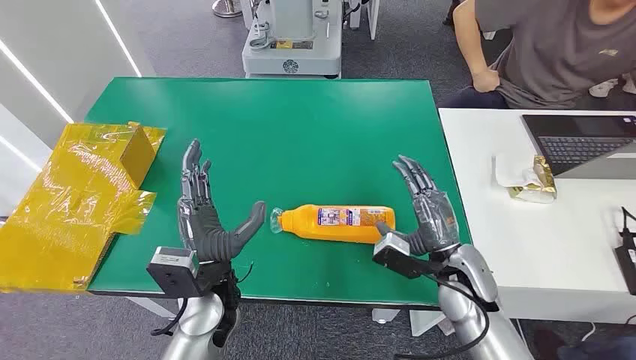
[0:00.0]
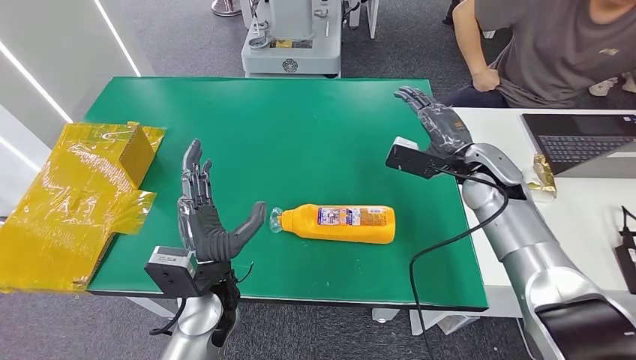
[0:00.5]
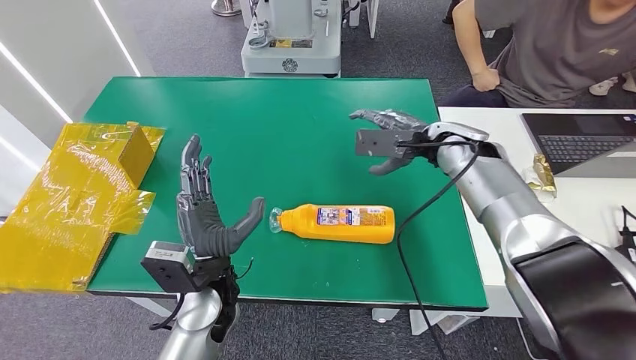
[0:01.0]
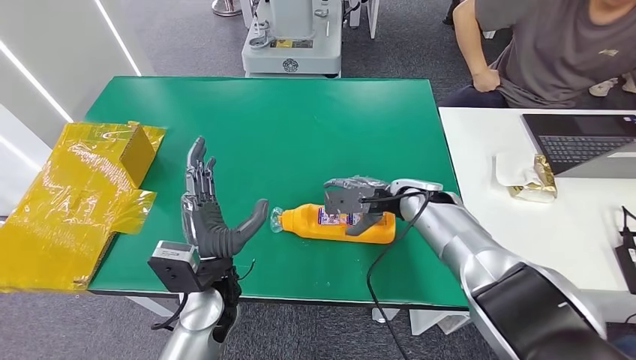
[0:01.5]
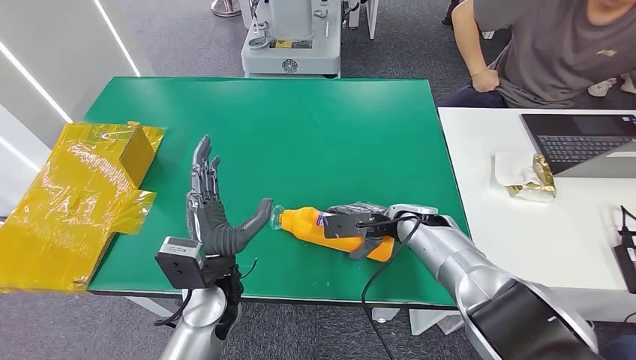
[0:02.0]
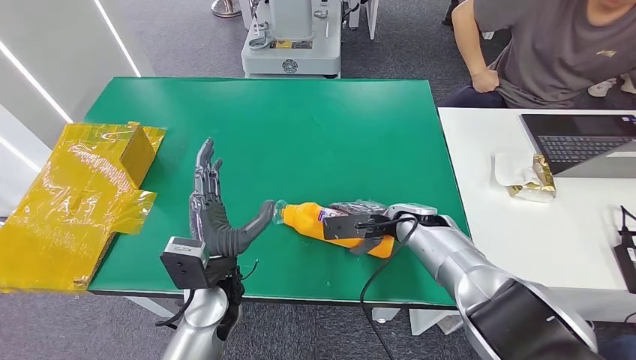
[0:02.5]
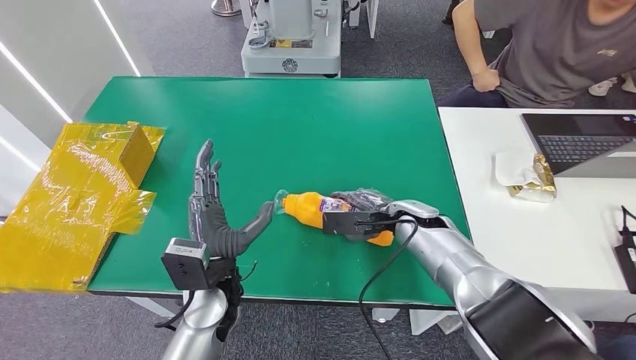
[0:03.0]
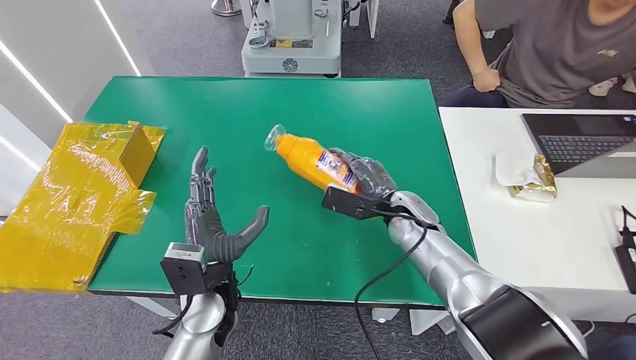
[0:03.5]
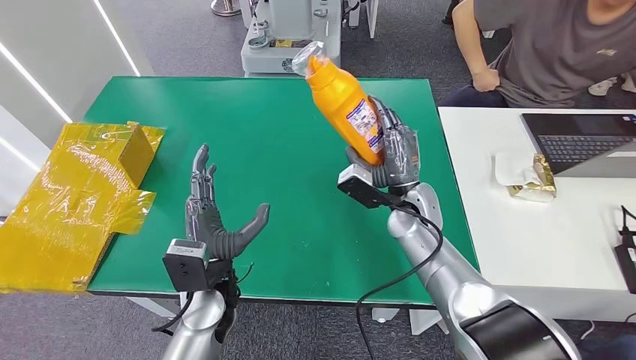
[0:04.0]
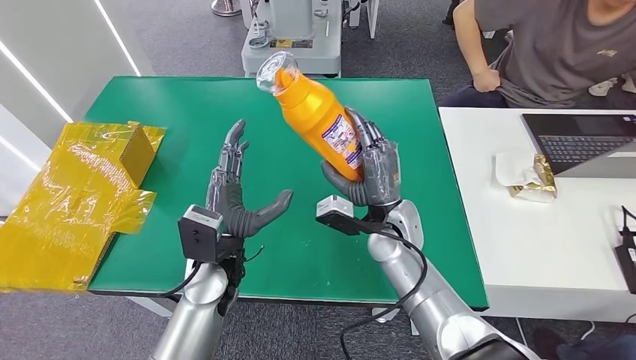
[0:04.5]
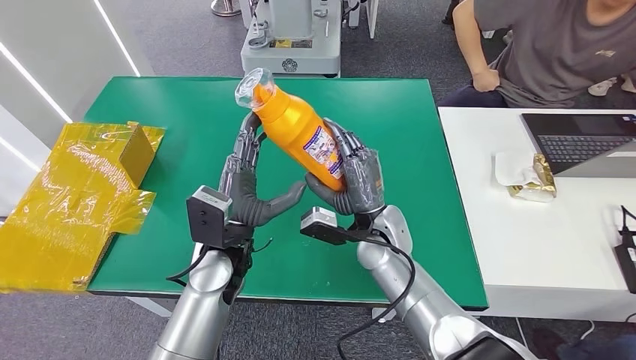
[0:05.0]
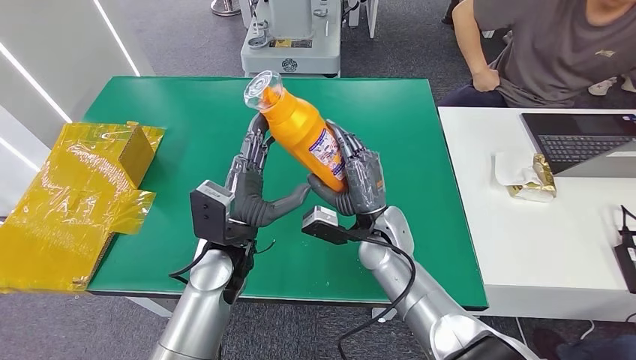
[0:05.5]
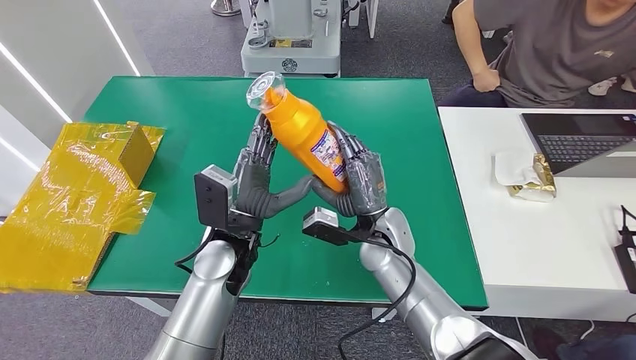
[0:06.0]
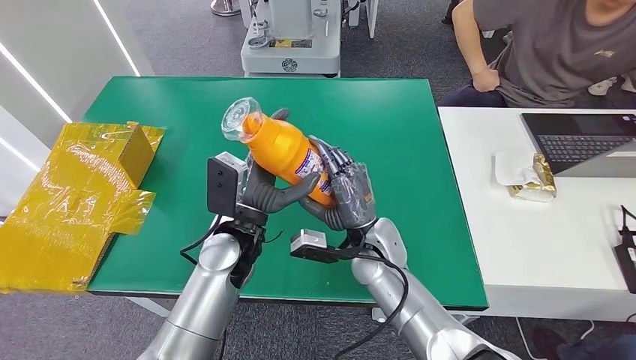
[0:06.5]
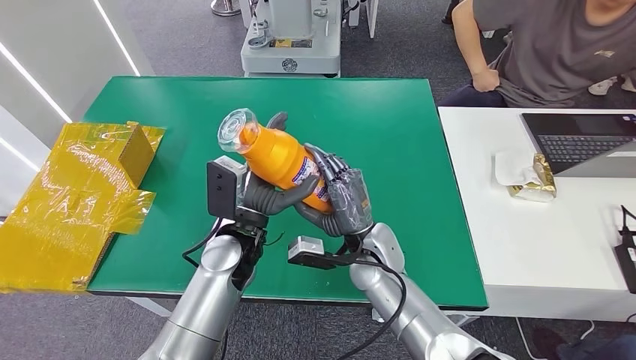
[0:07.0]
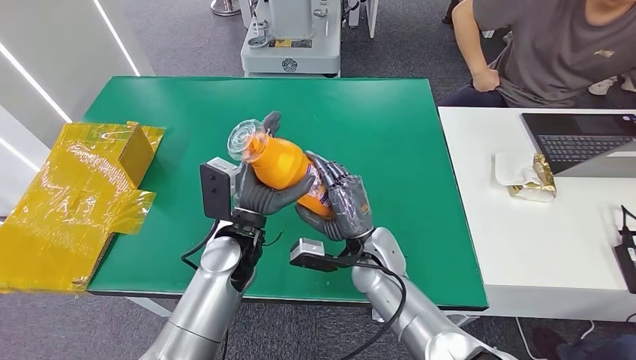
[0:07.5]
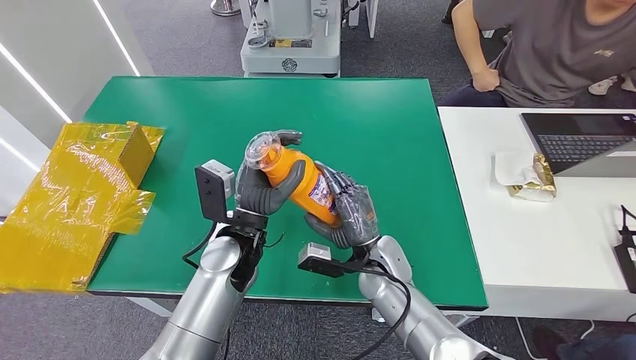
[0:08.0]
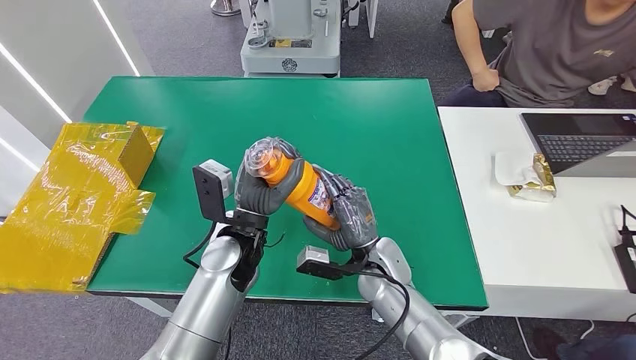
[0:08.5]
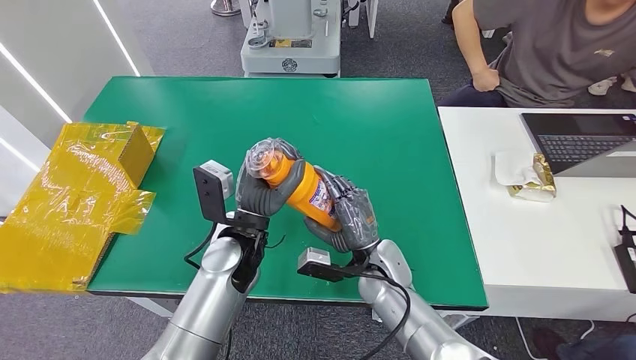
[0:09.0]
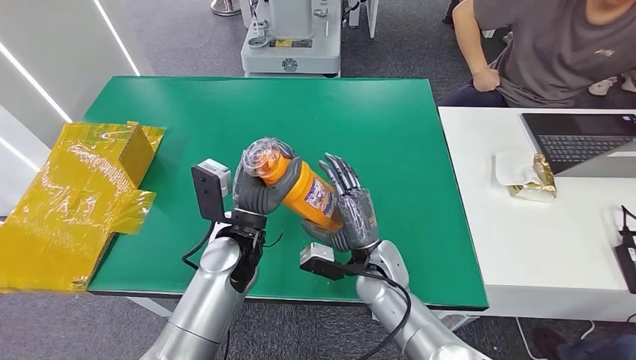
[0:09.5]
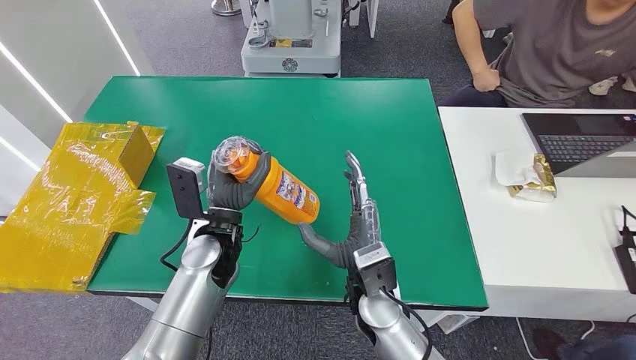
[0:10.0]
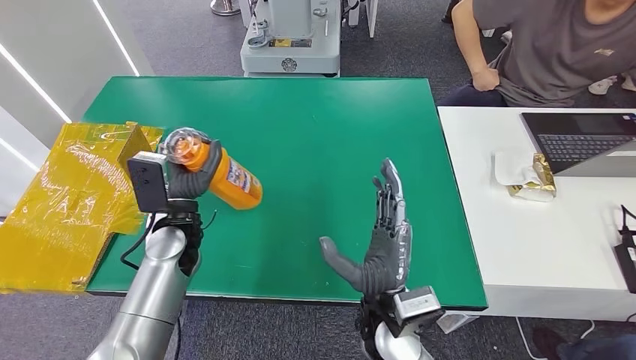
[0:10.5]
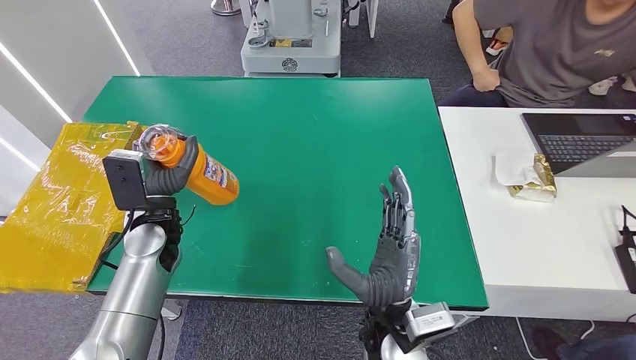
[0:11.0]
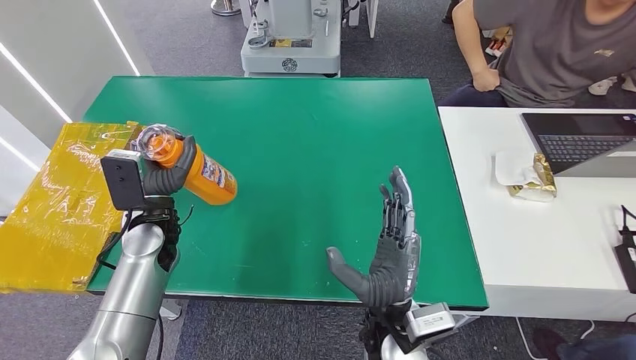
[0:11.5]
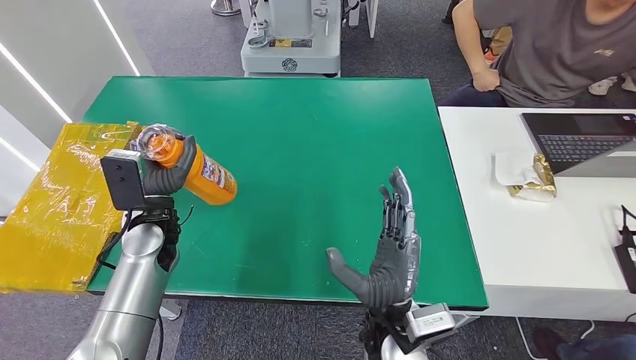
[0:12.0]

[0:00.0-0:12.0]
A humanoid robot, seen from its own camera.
Step, 0:00.0 to 0:04.5: Pick up the bottle from the table.
0:04.0 to 0:06.0: The right hand heads to the left, covering about 5 cm. Meanwhile the left hand shifts about 5 cm forward.
0:06.0 to 0:08.0: The right hand changes place by roughly 5 cm.
0:08.0 to 0:10.0: The right hand moves backward, approximately 5 cm.
0:10.0 to 0:12.0: The left hand heads to the left, covering approximately 10 cm. Meanwhile the right hand goes approximately 5 cm backward.

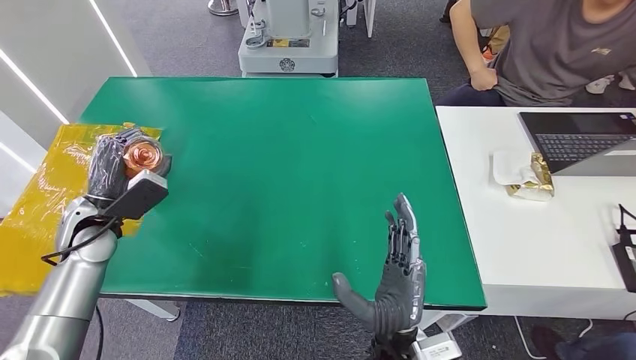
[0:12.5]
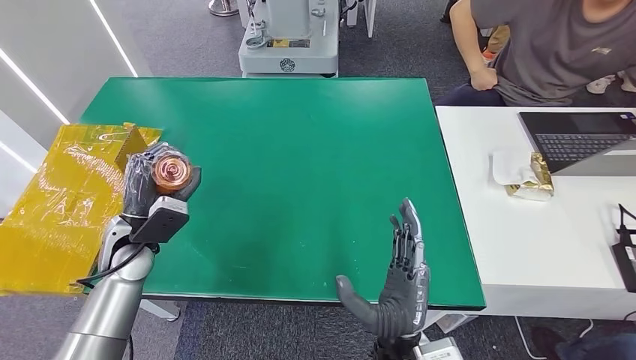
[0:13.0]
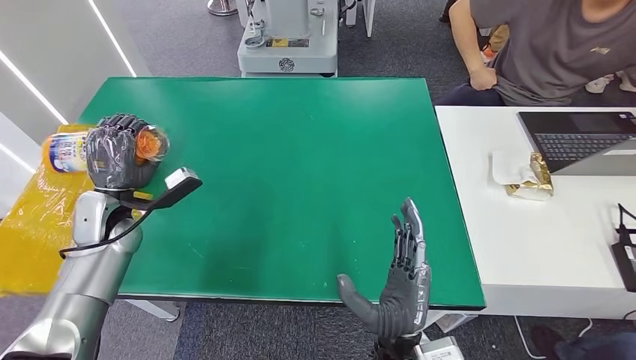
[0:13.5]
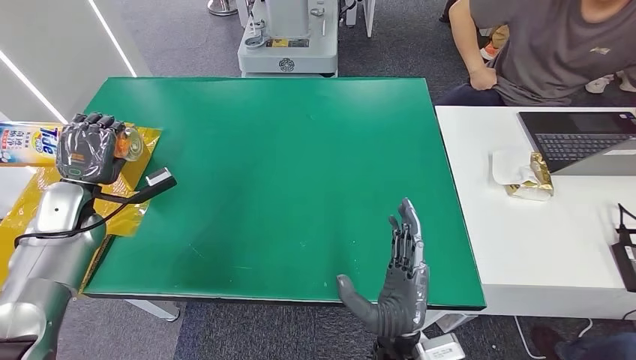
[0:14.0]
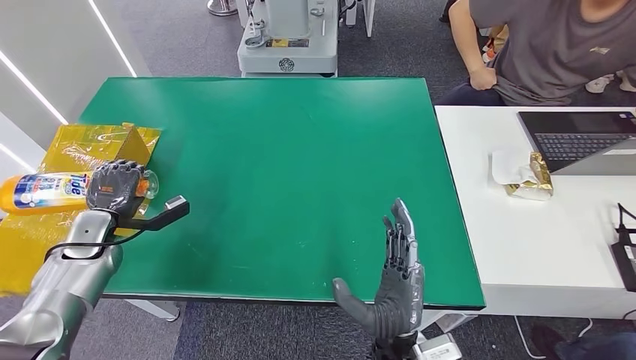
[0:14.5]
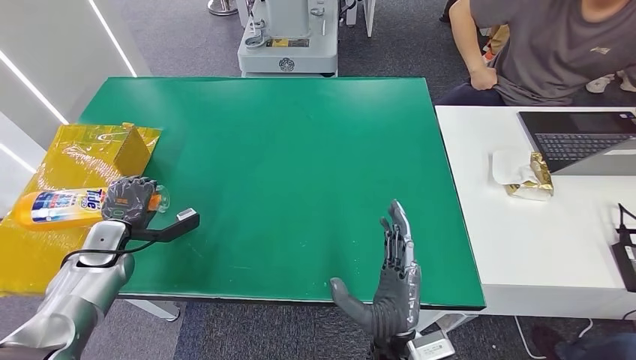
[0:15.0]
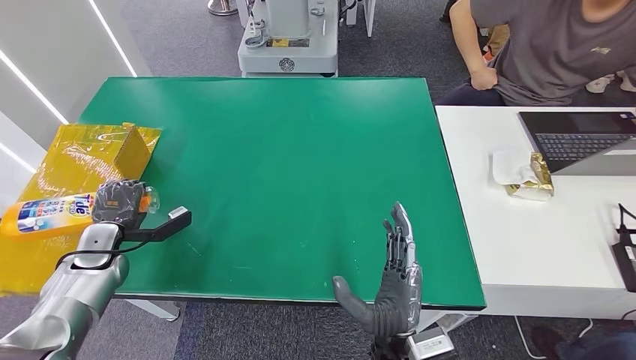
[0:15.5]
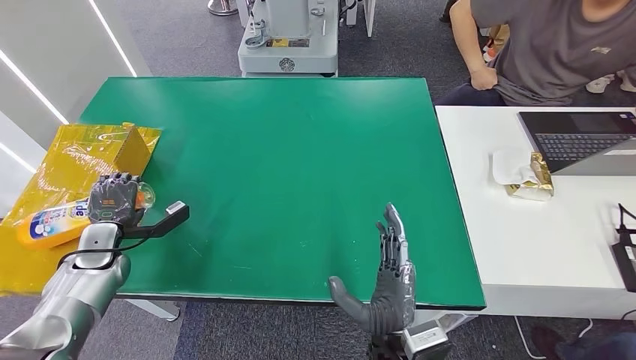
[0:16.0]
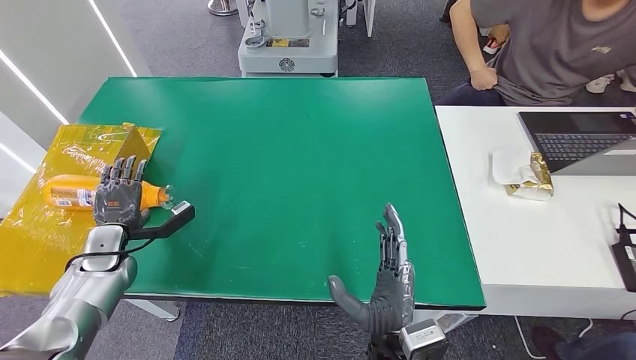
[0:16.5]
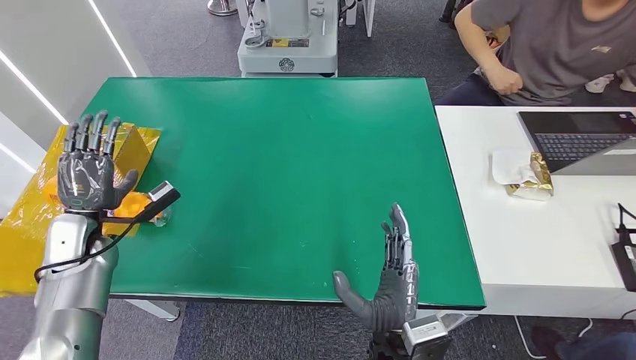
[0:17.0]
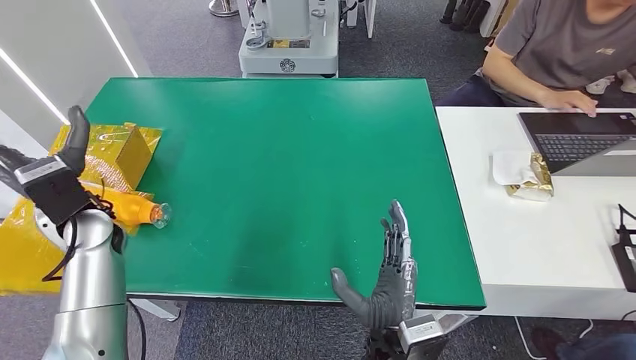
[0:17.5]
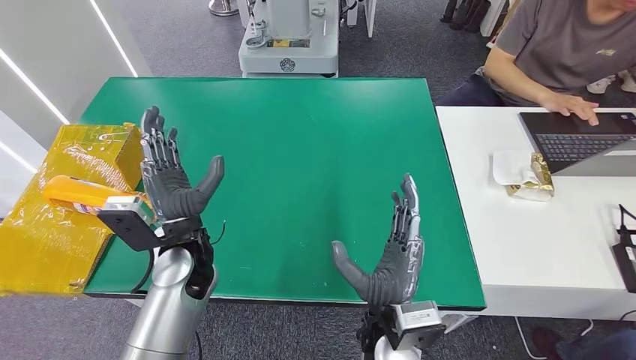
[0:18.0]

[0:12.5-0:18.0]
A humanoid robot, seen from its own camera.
Step, 0:12.5 to 0:18.0: Turn the bottle to the front side.
0:12.5 to 0:14.5: The left hand heads downward, covering approximately 5 cm.
0:14.5 to 0:16.0: The hands make only small movements.
0:16.0 to 0:18.0: The left hand goes approximately 25 cm to the right.

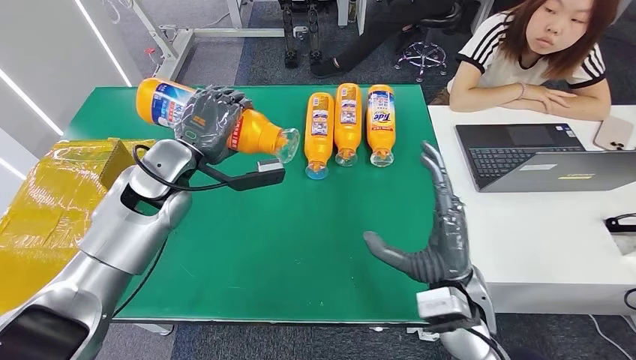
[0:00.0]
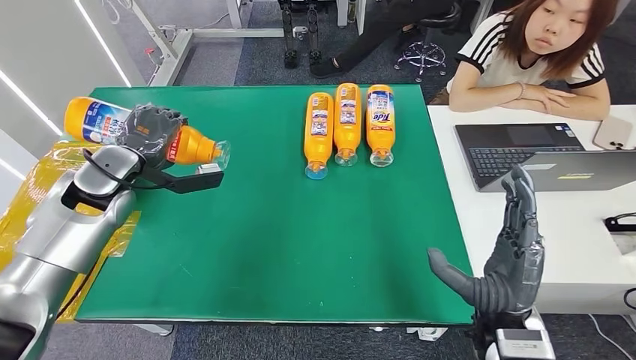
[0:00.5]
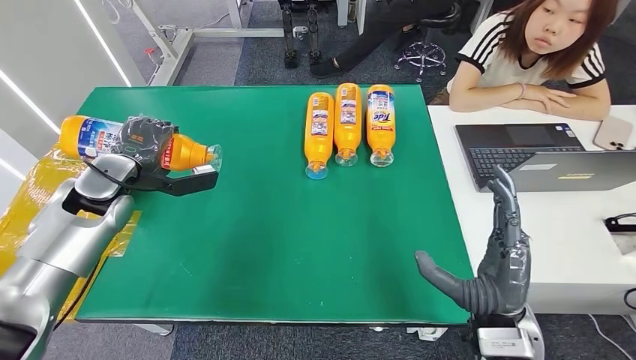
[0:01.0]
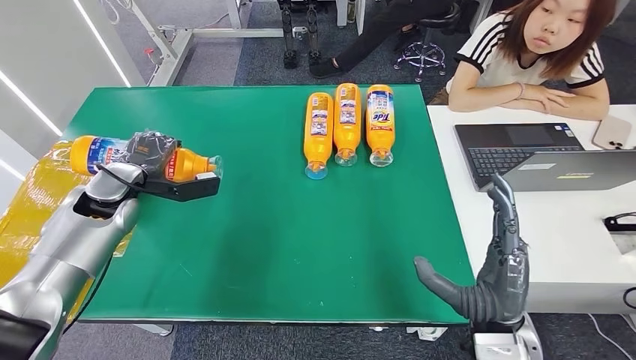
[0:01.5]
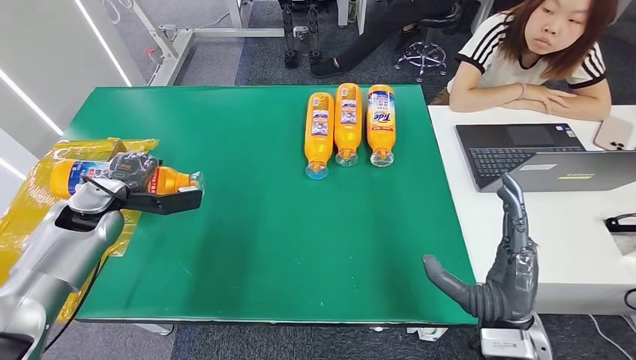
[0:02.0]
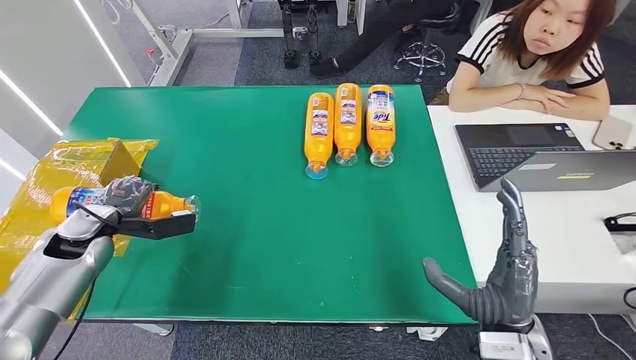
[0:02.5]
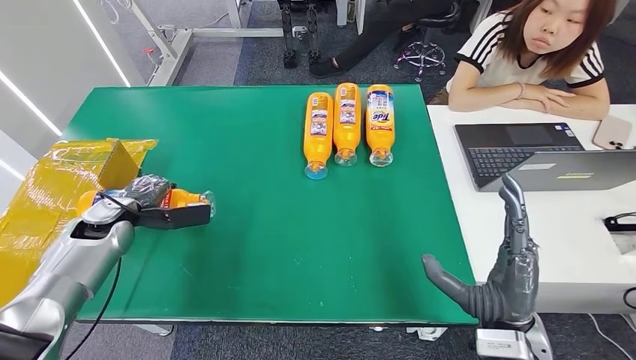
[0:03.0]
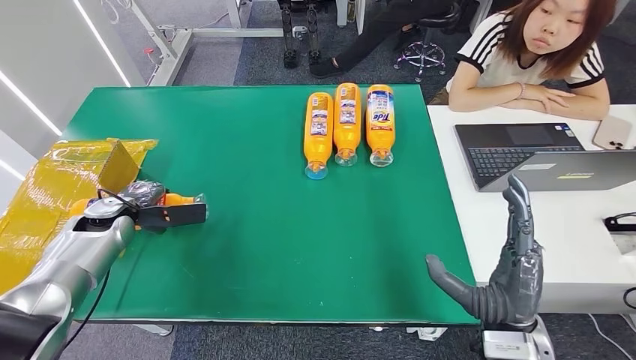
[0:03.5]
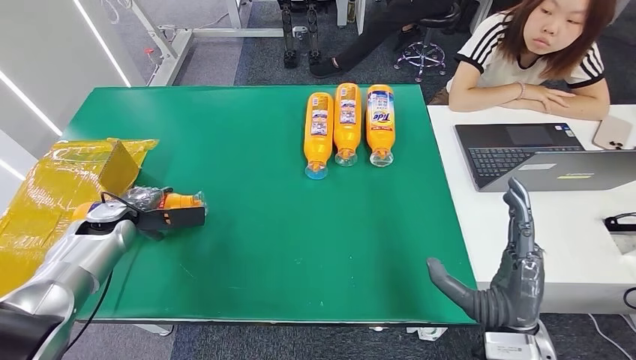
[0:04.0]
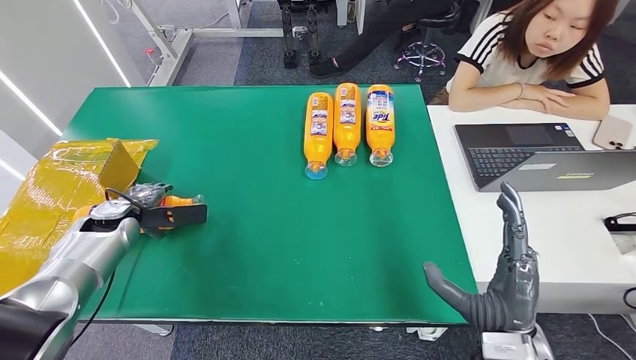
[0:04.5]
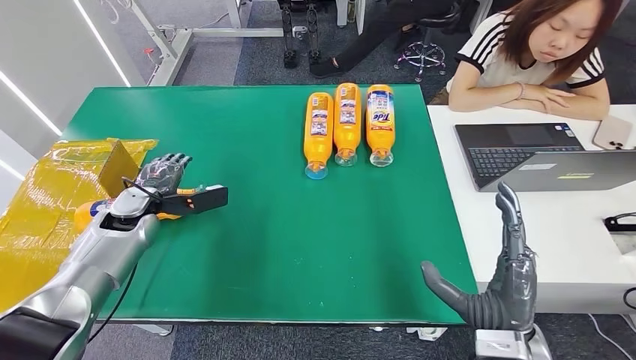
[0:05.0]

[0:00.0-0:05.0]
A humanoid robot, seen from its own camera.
0:02.5 to 0:05.0: The left hand heads to the right, covering some 5 cm.
